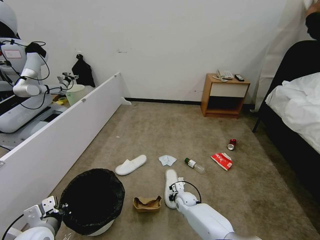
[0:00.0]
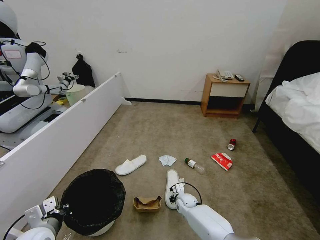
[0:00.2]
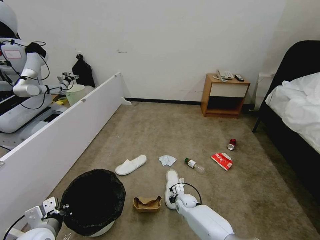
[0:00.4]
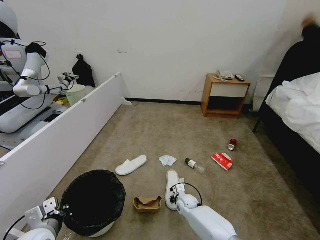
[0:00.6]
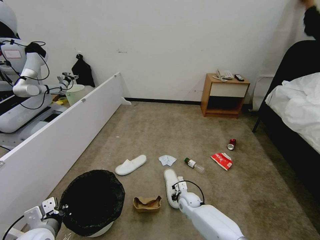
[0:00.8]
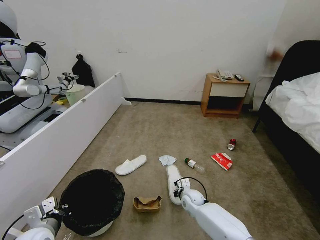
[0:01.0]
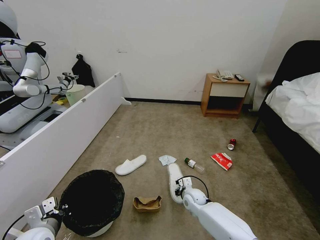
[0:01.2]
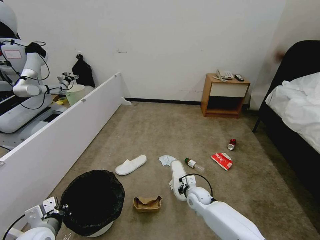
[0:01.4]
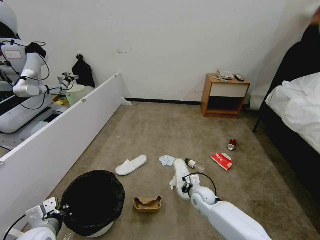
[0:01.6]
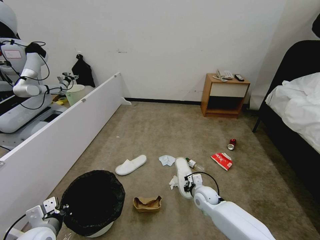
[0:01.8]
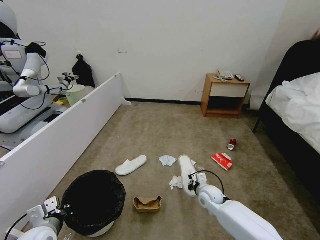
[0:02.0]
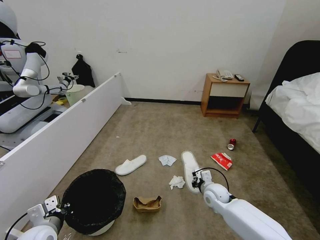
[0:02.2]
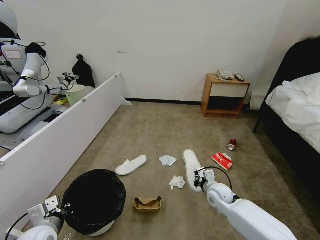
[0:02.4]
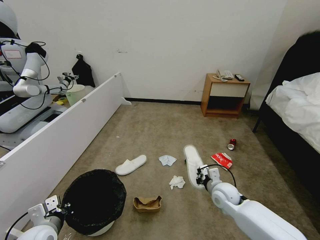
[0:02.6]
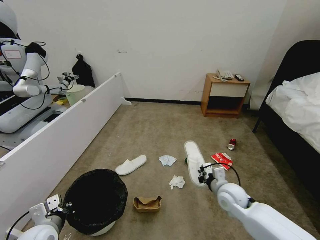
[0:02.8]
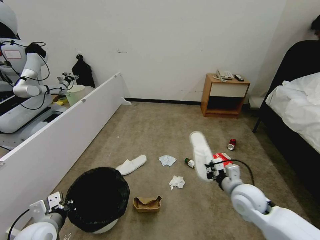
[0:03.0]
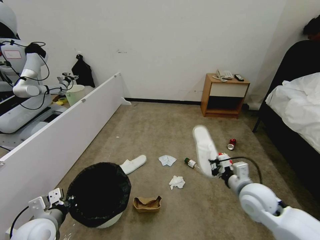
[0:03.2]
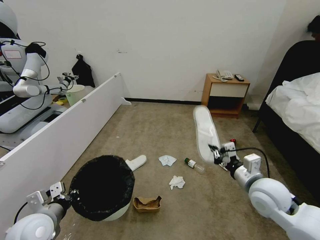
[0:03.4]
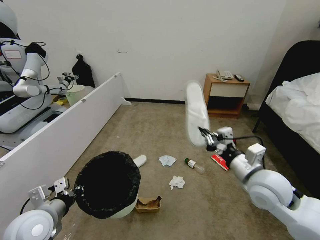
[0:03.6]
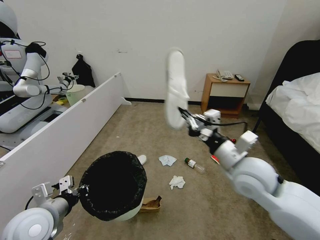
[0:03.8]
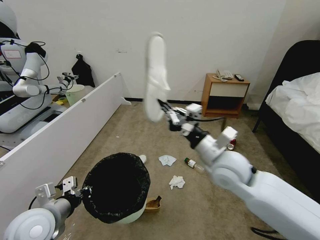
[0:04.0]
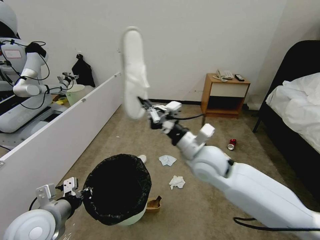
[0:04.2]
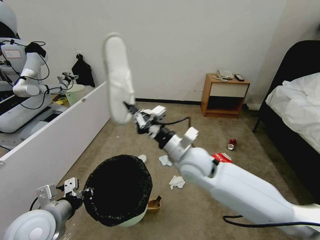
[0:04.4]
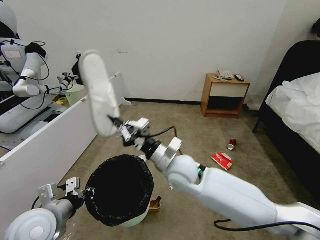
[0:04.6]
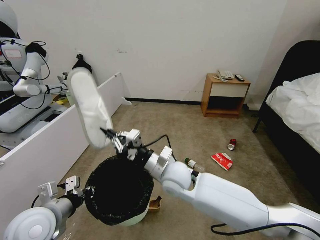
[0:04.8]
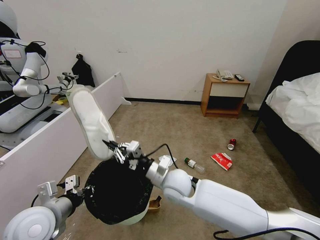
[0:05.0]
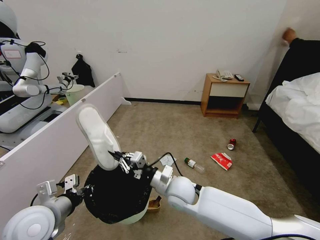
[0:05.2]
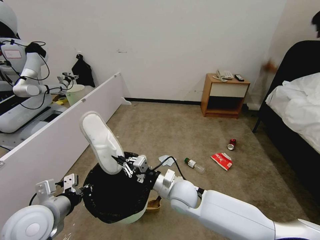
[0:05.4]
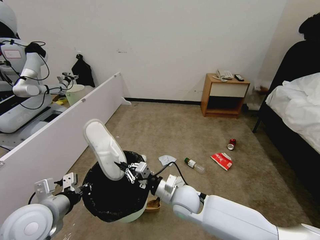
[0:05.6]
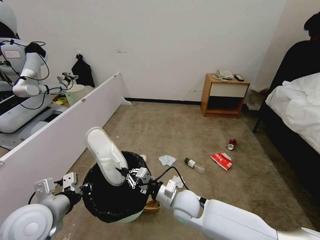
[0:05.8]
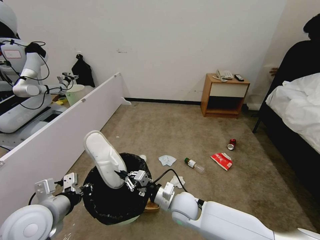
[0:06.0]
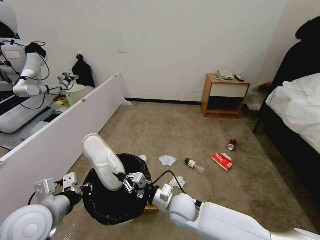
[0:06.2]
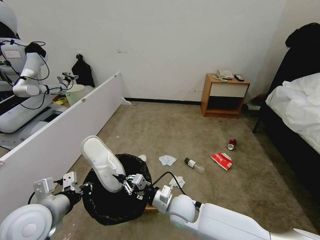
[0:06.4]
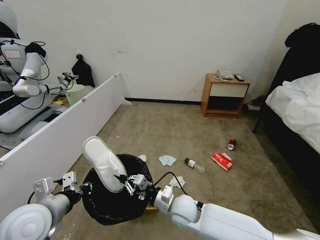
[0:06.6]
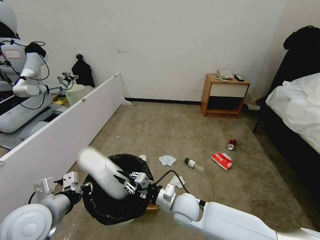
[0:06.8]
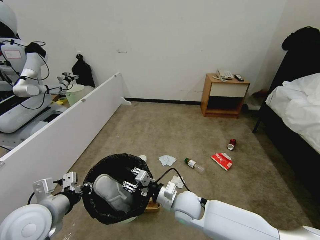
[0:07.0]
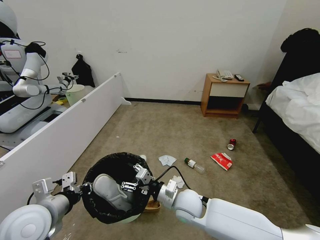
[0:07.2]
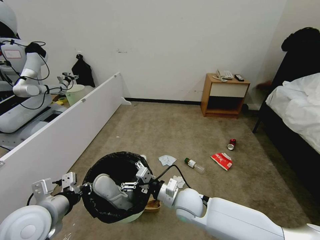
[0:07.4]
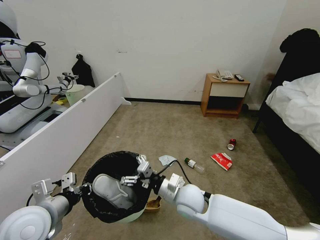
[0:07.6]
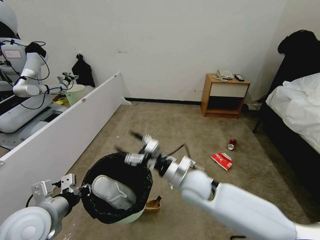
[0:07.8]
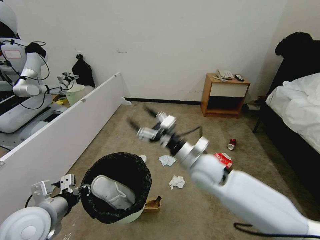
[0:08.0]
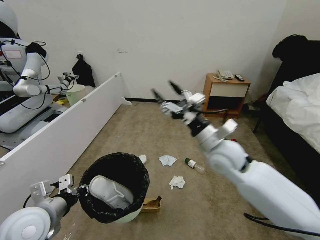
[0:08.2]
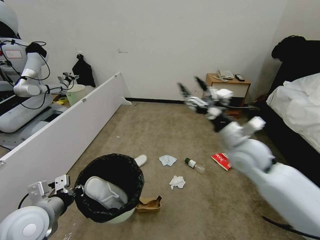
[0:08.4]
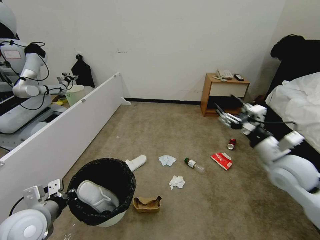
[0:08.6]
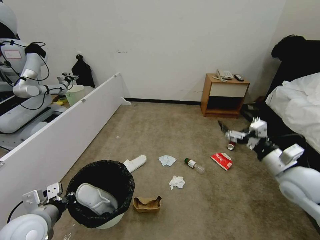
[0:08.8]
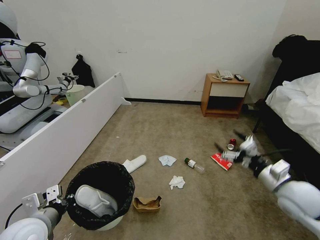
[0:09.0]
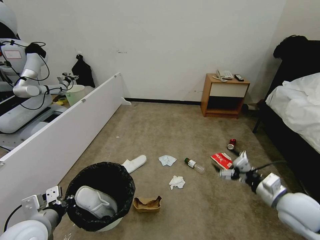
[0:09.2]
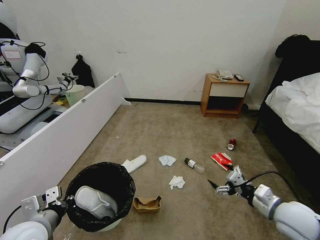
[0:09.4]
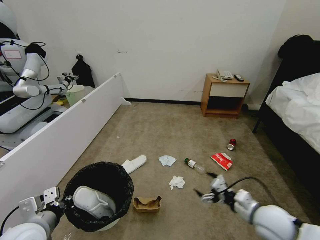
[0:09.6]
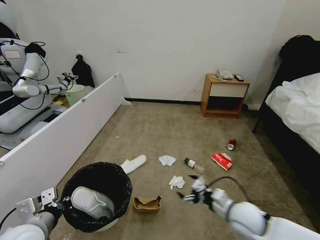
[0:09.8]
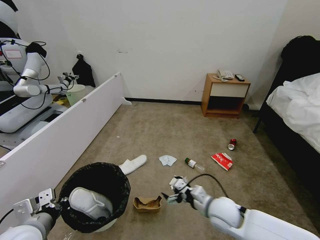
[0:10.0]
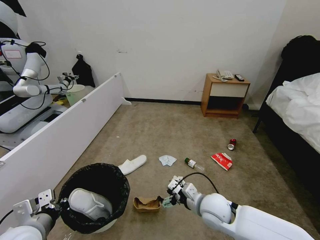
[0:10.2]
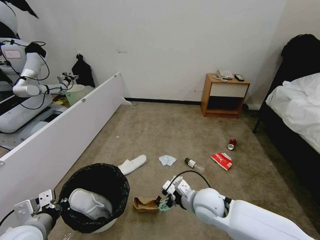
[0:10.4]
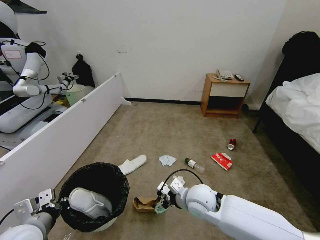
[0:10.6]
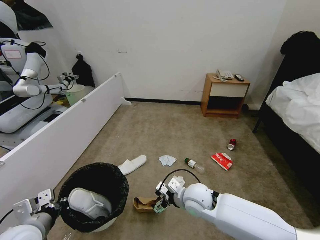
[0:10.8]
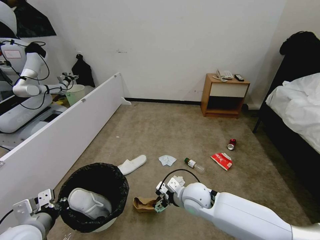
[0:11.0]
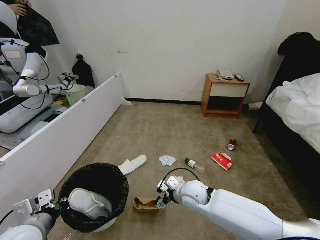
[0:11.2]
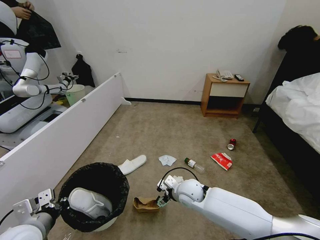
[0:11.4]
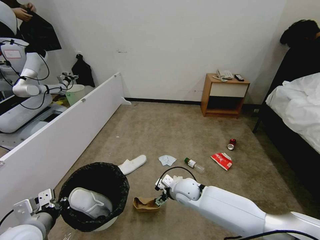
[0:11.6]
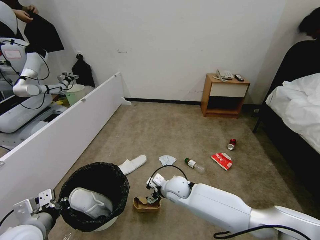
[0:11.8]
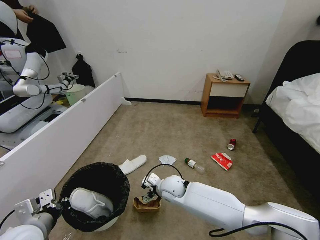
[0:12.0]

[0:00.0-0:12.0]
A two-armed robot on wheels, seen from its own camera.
Task of the whole recording: Pick up the trash bin, then pick up the garbage from the floor and place it into the trash bin.
0:00.0 to 0:01.6: The right gripper is displaced upward and to the right by some 10 cm.
0:01.6 to 0:03.0: The right gripper shifts approximately 20 cm upward, to the right and backward.
0:03.0 to 0:04.4: The left gripper shifts about 10 cm upward; the right gripper goes roughly 20 cm to the left and upward.
0:04.4 to 0:06.0: The right gripper moves downward, roughly 20 cm.
0:06.0 to 0:07.6: The right gripper moves roughly 5 cm, and opens.
0:07.6 to 0:09.0: The left gripper ends up about 5 cm from where it was, while the right gripper moves to the right, some 30 cm.
0:09.0 to 0:10.4: The right gripper shifts roughly 25 cm to the left.
0:10.4 to 0:12.0: The right gripper heads to the left, forward and downward, covering about 15 cm.

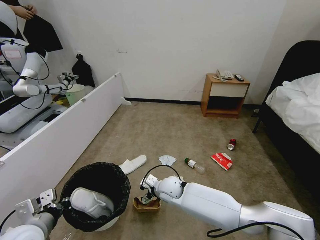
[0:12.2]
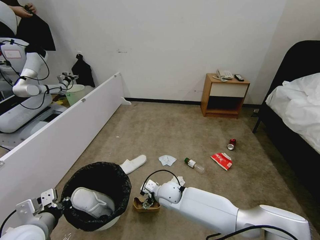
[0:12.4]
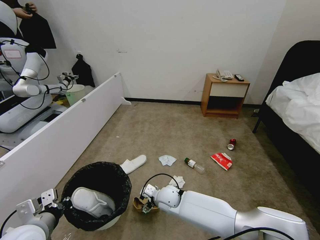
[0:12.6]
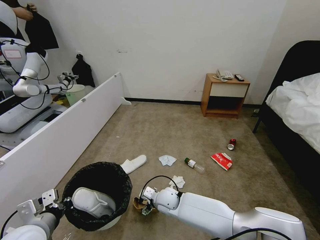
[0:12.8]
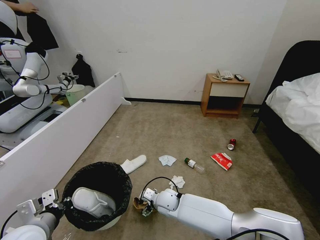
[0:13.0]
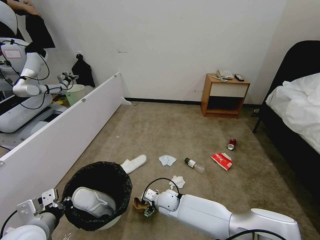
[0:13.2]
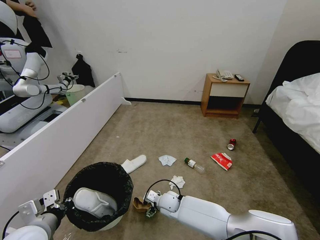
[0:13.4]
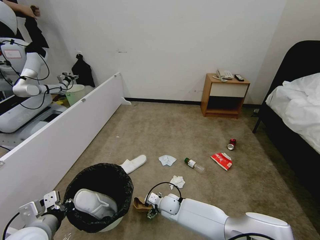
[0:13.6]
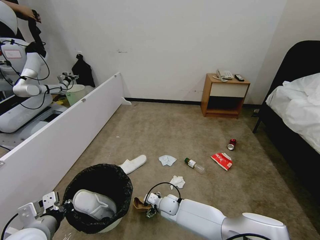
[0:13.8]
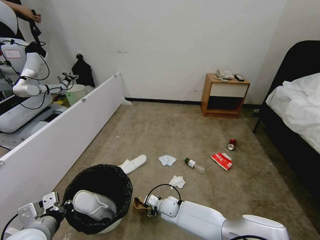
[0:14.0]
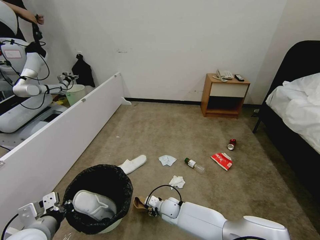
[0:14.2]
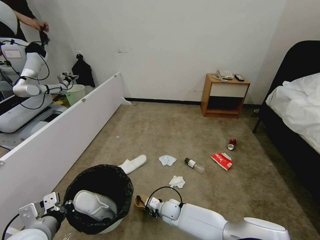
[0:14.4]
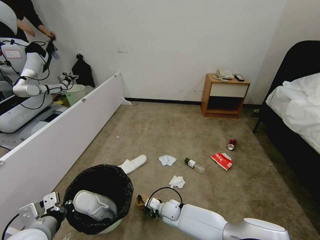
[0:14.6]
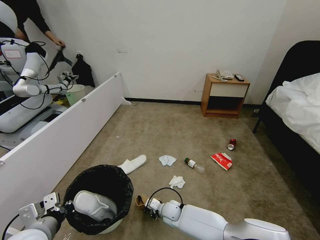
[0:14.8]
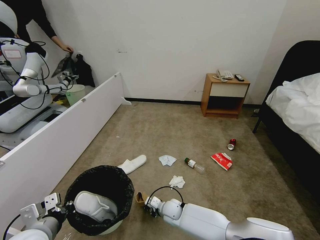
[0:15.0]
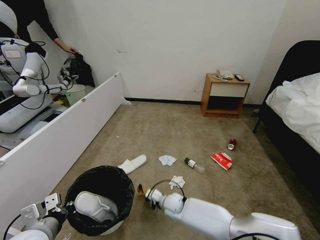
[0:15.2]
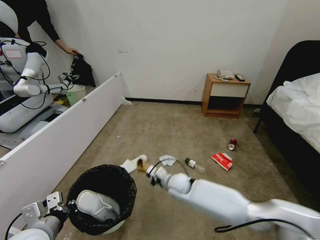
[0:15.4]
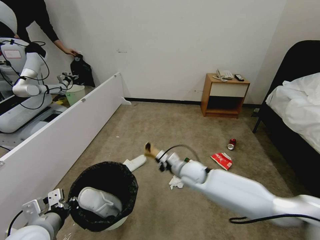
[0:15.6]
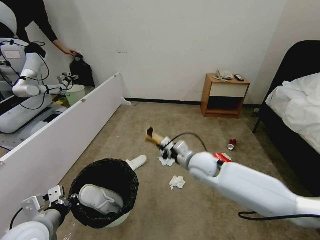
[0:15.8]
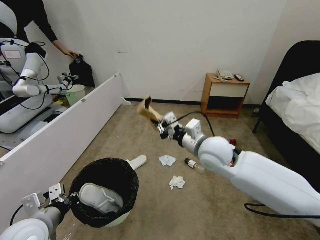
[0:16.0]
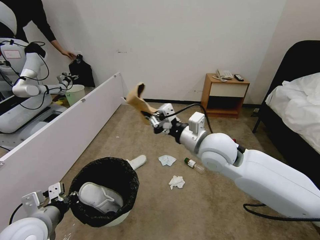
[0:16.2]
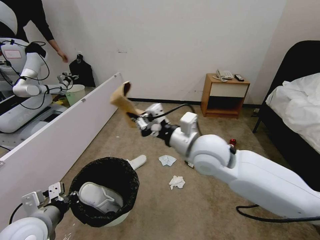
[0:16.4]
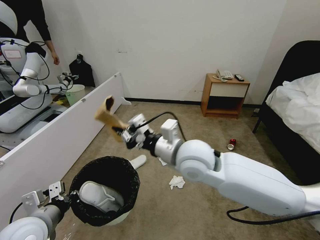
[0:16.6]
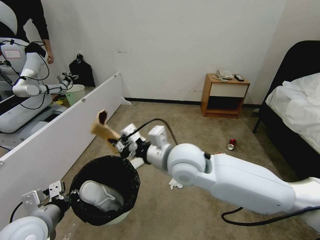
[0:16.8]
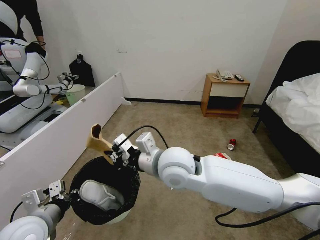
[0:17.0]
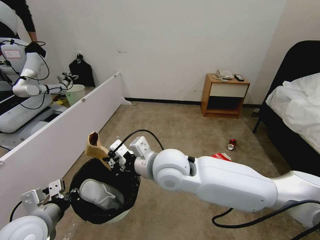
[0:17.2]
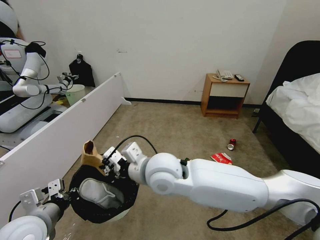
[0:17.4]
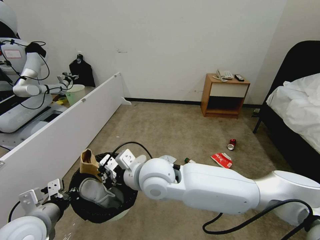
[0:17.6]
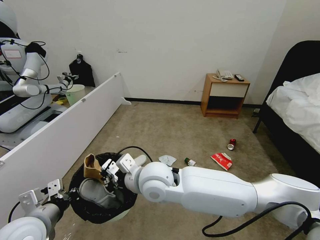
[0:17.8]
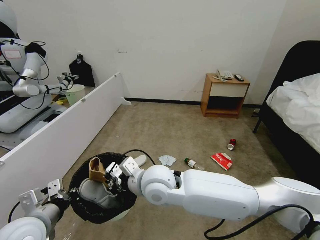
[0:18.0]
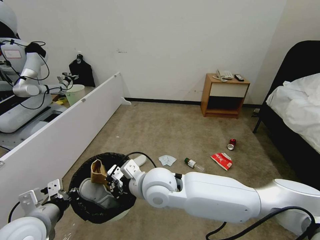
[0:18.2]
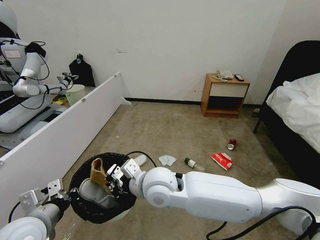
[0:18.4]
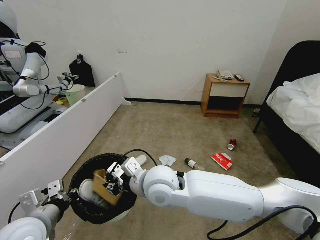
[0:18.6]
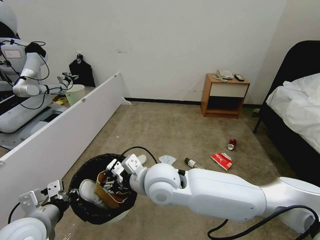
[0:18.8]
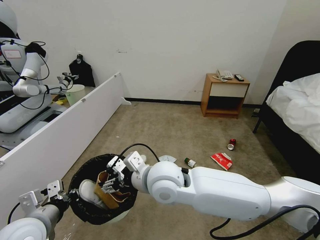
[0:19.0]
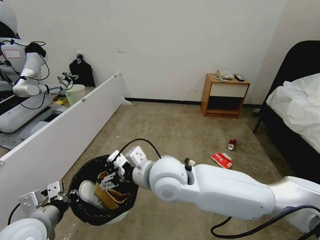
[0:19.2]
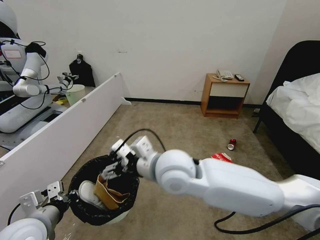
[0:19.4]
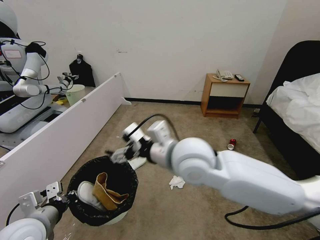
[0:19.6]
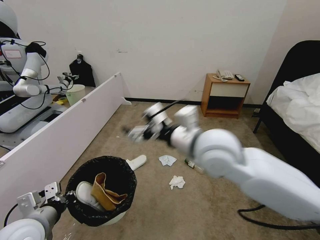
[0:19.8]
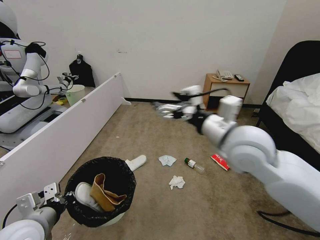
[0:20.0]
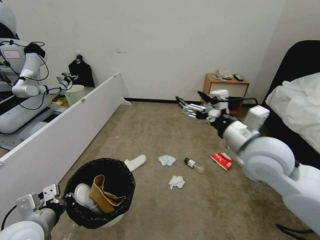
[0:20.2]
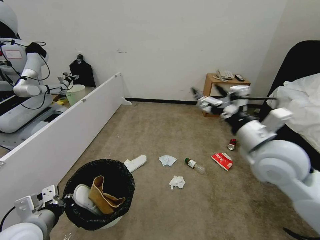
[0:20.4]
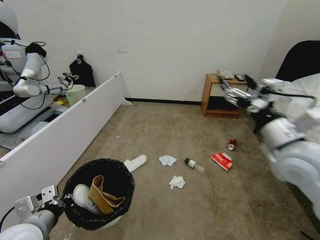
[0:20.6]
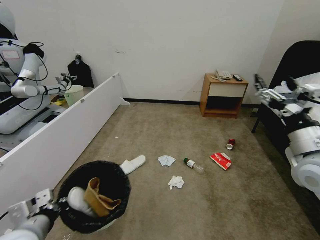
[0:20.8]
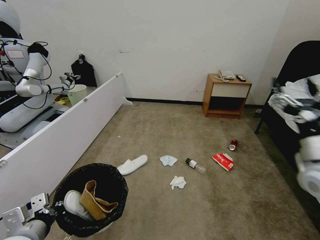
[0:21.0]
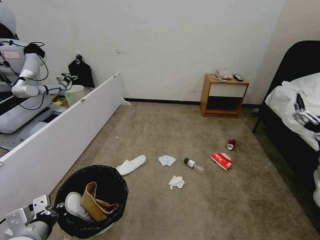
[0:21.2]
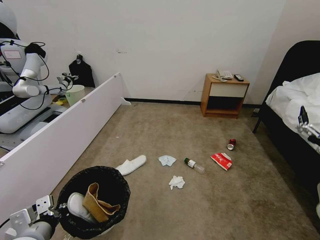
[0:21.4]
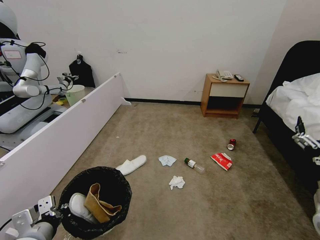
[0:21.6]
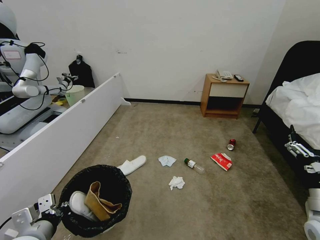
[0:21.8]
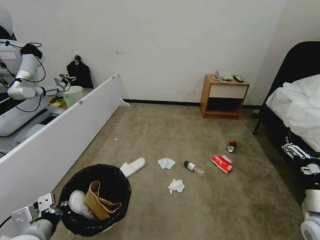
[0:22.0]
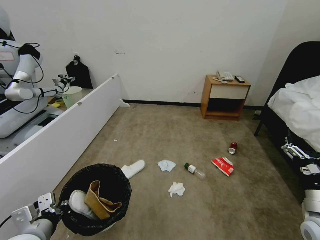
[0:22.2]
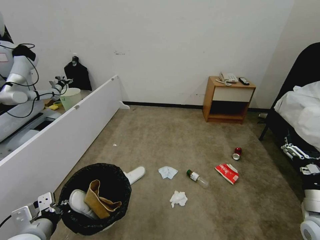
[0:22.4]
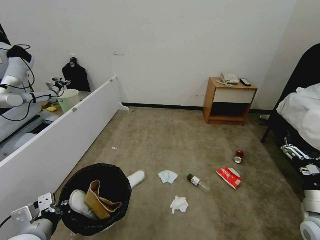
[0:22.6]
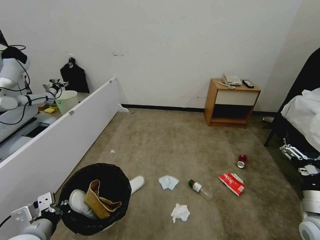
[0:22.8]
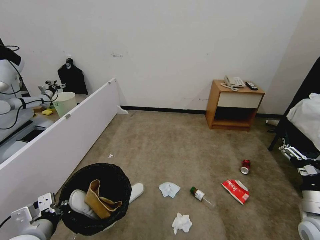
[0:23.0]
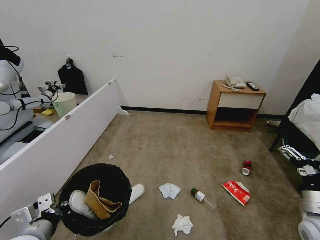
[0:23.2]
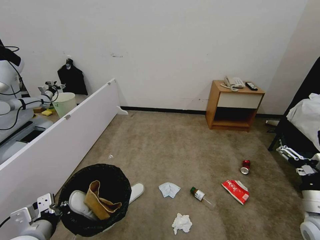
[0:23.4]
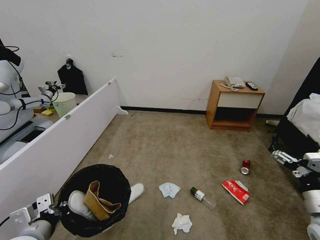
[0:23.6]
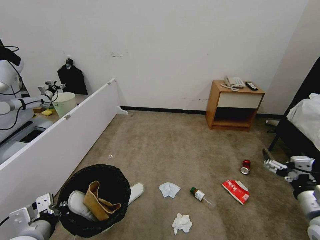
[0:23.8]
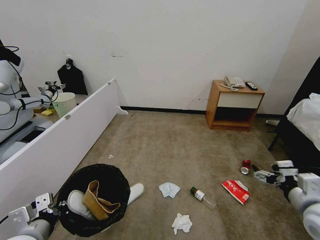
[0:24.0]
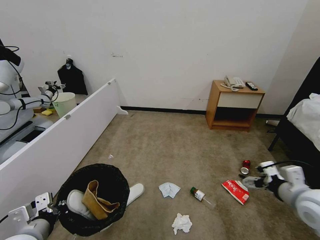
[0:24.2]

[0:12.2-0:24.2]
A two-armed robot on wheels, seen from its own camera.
Task of the whole recording: Pick up the trash bin, then pick up the garbage from the floor and place it into the trash bin.
0:12.2 to 0:13.8: The right gripper is displaced downward by about 15 cm.
0:13.8 to 0:15.2: The right gripper closes up.
0:15.2 to 0:16.6: The right gripper is displaced upward by some 40 cm.
0:16.6 to 0:18.2: The right gripper goes about 10 cm to the left and downward.
0:18.2 to 0:19.8: The right gripper heads to the right and upward, covering approximately 20 cm, and opens up.
0:19.8 to 0:21.2: The right gripper travels to the right by about 30 cm.
0:21.2 to 0:22.6: The right gripper travels downward by some 10 cm.
0:22.6 to 0:24.2: The right gripper is displaced upward by approximately 5 cm.
